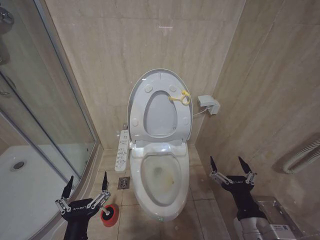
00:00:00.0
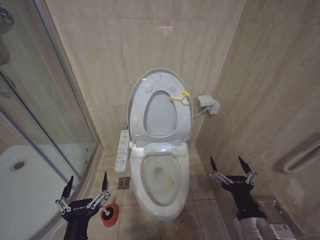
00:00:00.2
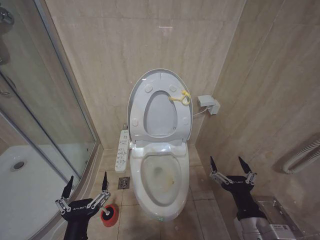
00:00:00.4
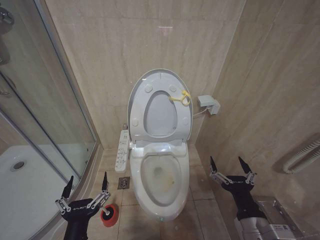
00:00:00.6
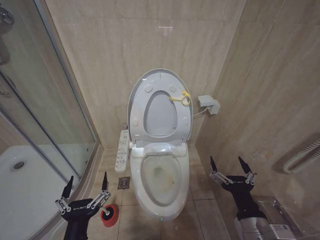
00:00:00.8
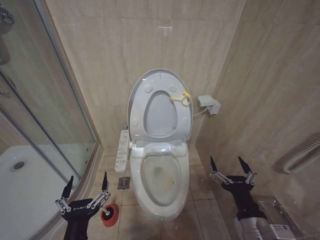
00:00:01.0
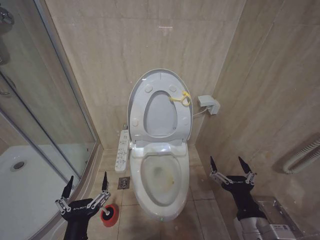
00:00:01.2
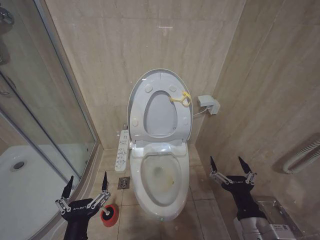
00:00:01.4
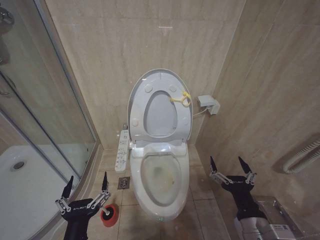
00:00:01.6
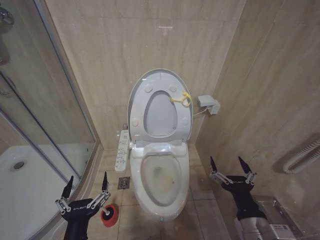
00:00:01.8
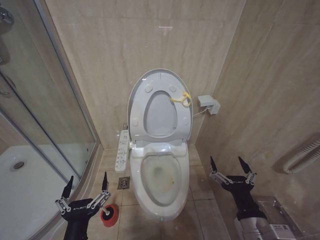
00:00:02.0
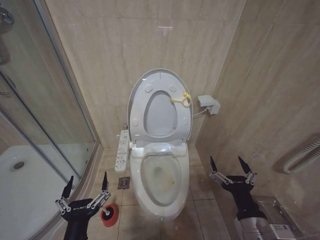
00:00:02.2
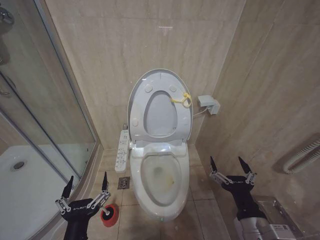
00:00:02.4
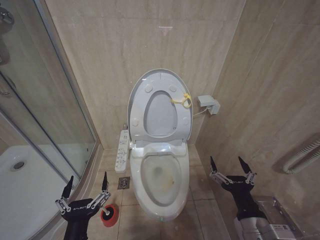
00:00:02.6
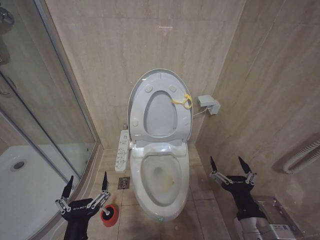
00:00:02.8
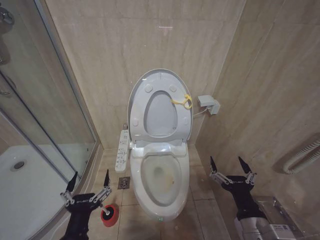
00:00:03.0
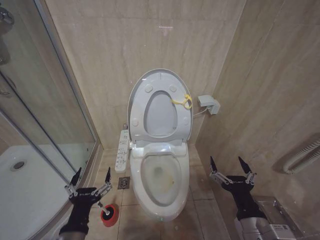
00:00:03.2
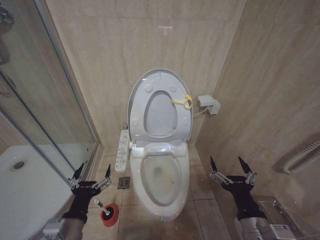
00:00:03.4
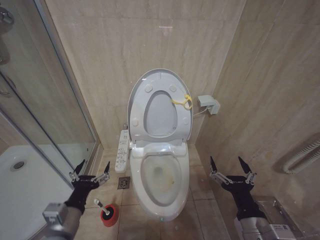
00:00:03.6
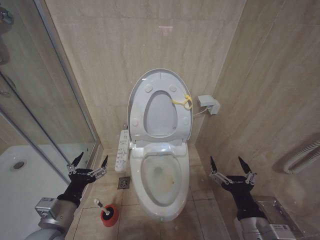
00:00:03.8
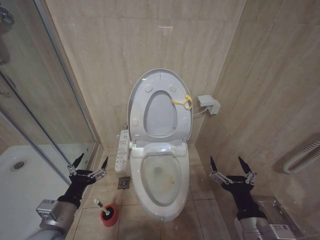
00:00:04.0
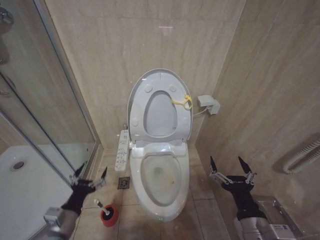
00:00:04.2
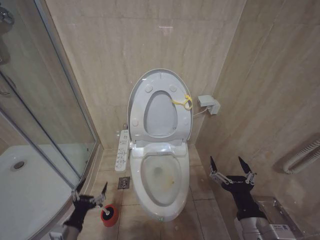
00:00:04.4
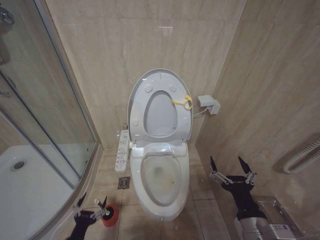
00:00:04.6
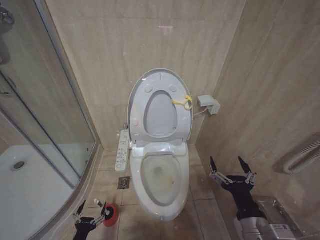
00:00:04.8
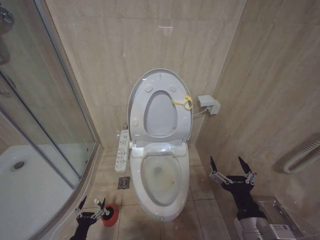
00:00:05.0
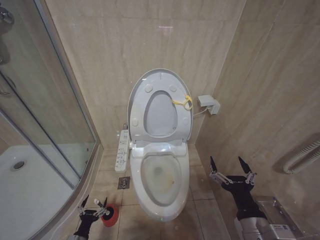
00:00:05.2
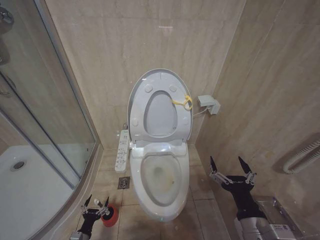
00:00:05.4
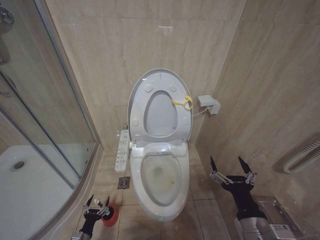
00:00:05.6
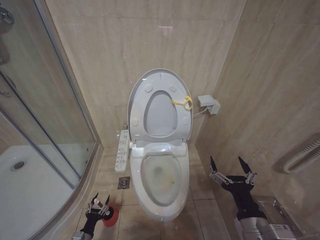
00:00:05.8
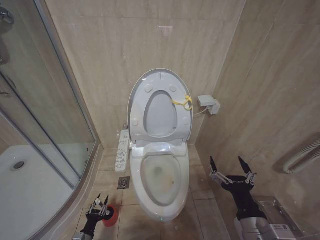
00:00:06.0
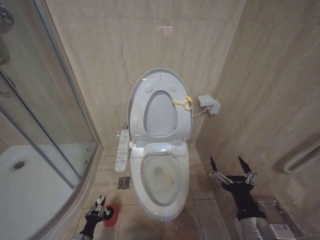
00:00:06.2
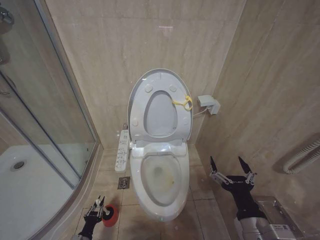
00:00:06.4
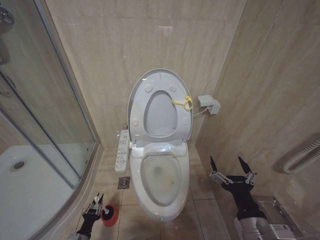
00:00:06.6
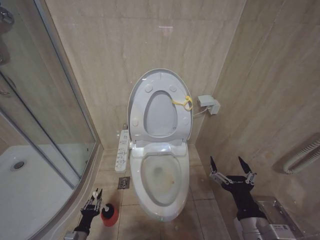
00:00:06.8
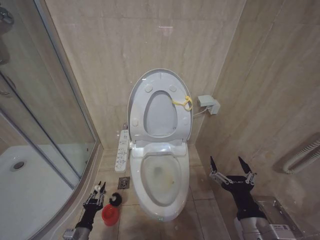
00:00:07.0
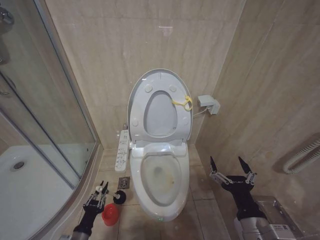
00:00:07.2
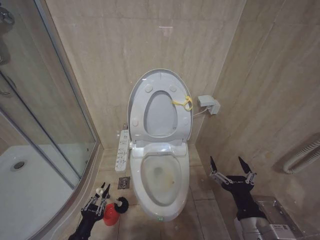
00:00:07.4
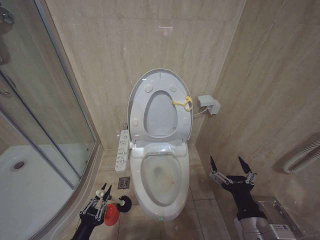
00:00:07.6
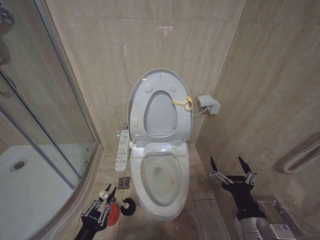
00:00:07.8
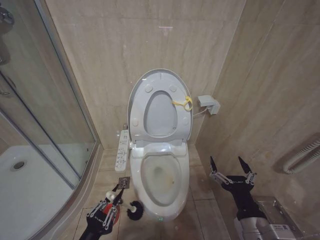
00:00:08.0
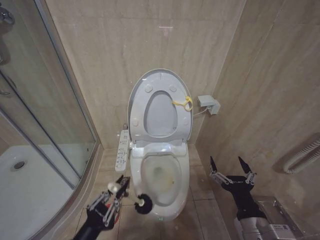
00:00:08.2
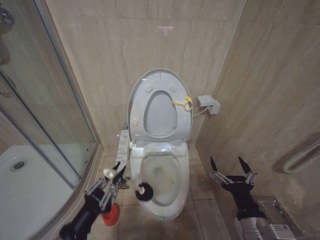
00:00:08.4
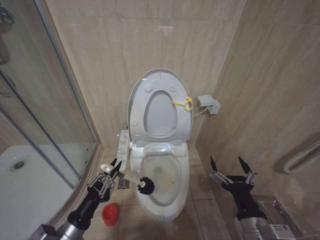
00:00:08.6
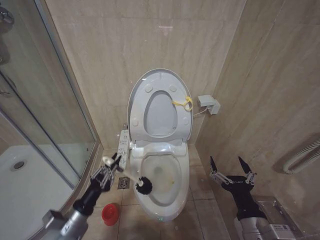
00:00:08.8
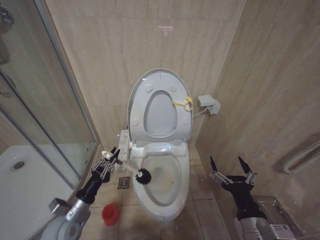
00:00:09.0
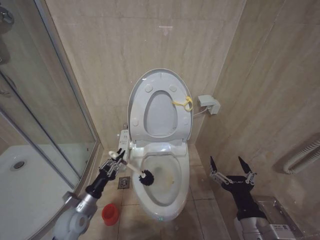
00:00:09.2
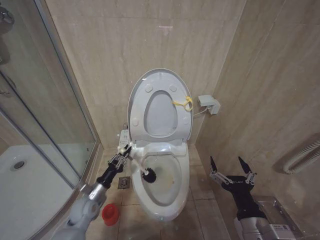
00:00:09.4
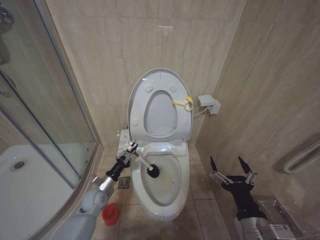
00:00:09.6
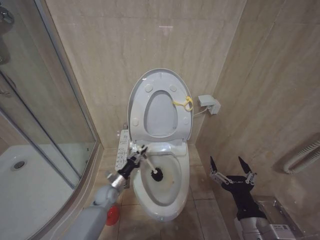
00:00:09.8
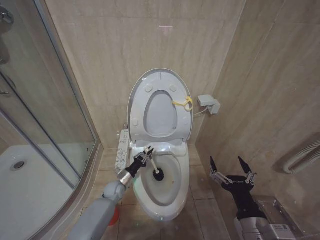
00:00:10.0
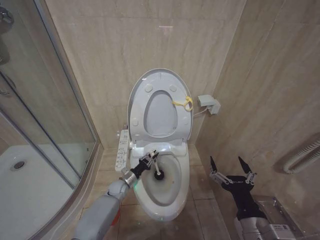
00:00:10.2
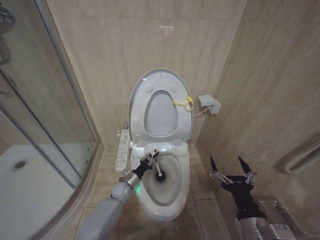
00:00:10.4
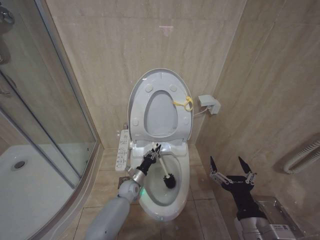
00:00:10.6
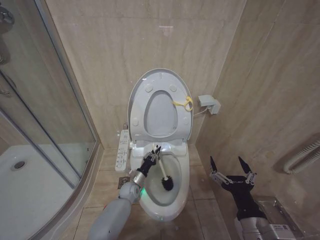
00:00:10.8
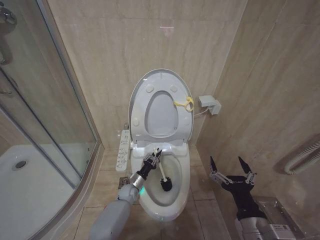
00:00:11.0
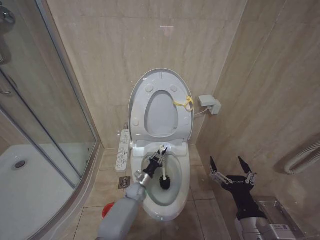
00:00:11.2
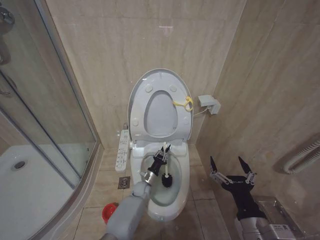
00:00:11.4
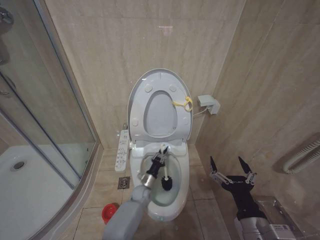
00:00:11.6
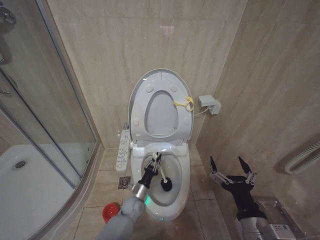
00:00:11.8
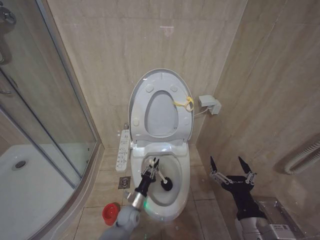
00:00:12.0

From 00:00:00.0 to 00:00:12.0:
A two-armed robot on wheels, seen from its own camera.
Task of the whole recording: Open the toilet lid, clean the toilet bowl with a toilet brush, close the toilet lid, and flush.
From 00:00:00.0 to 00:00:03.0: The two grippers keep their place.
From 00:00:03.0 to 00:00:04.4: The left gripper moves to the left, downward and forward, approximately 15 cm.
From 00:00:04.4 to 00:00:06.0: The left gripper travels downward by roughly 20 cm, and closes up.
From 00:00:06.0 to 00:00:07.6: The left gripper is displaced upward and backward by some 20 cm, and closes up.
From 00:00:07.6 to 00:00:09.0: The left gripper shifts about 15 cm forward and upward.
From 00:00:09.0 to 00:00:10.4: The left gripper moves forward, downward and to the right, approximately 30 cm.
From 00:00:10.4 to 00:00:12.0: The left gripper is displaced backward and to the right by about 10 cm.

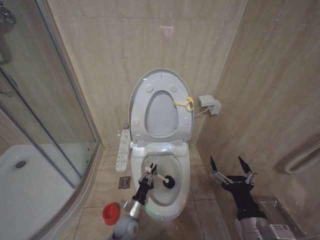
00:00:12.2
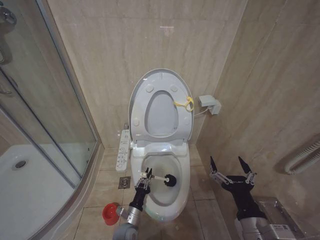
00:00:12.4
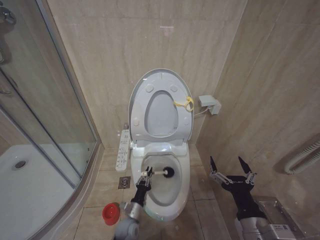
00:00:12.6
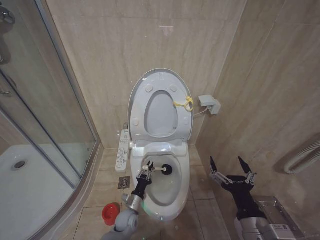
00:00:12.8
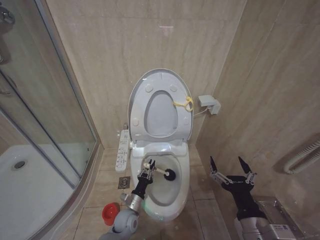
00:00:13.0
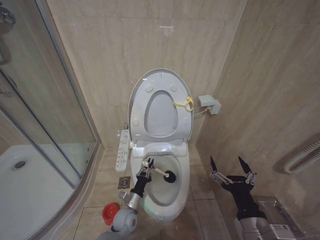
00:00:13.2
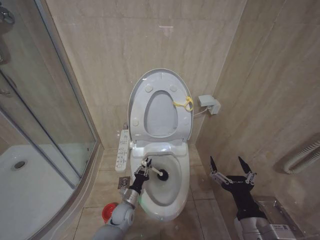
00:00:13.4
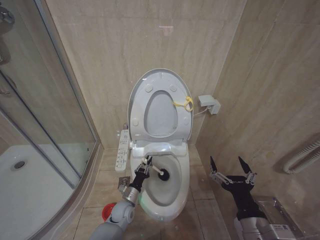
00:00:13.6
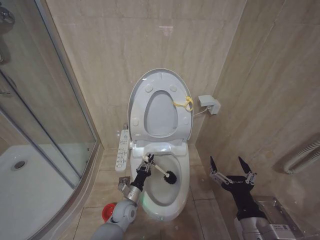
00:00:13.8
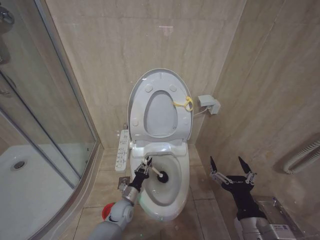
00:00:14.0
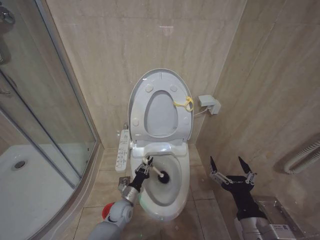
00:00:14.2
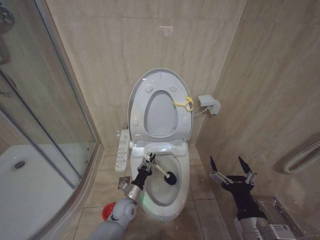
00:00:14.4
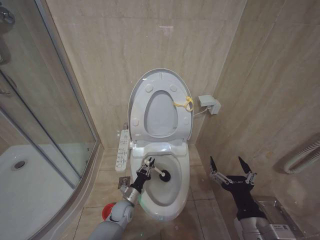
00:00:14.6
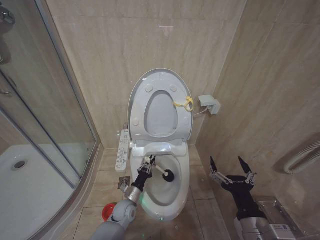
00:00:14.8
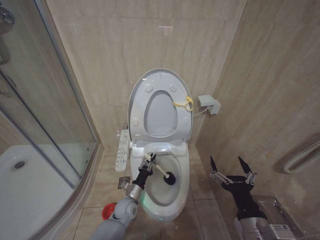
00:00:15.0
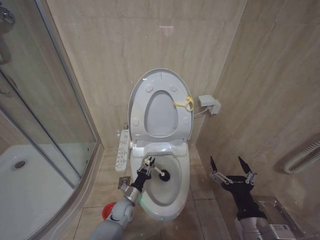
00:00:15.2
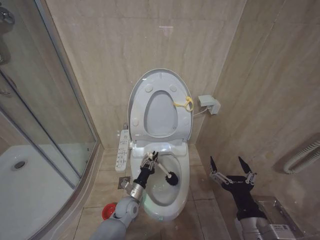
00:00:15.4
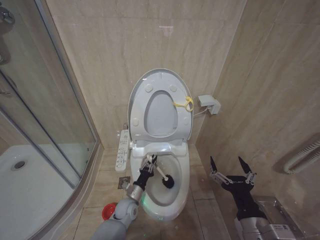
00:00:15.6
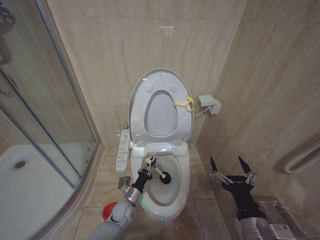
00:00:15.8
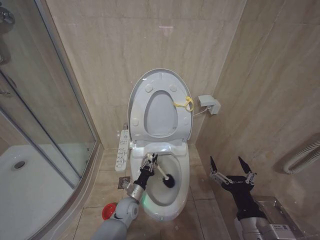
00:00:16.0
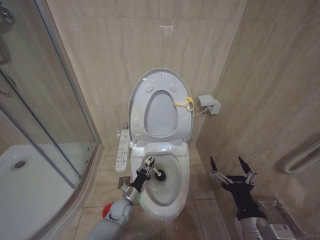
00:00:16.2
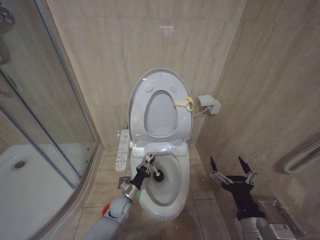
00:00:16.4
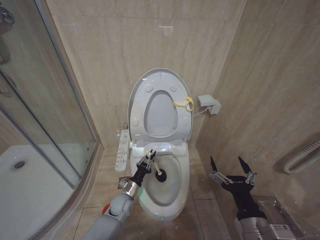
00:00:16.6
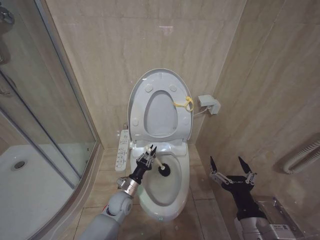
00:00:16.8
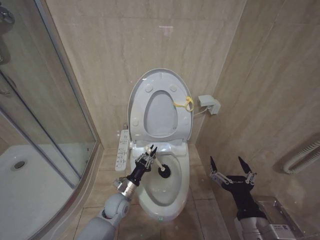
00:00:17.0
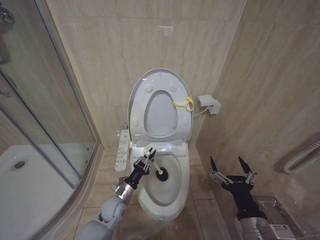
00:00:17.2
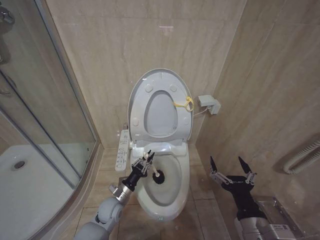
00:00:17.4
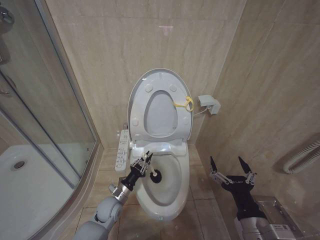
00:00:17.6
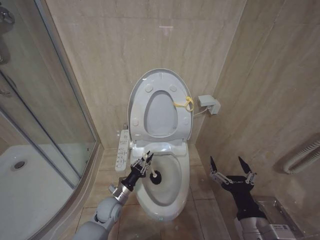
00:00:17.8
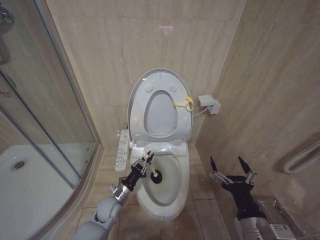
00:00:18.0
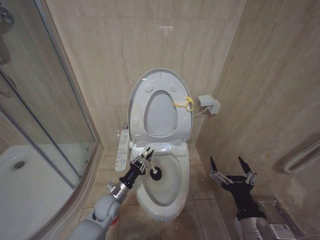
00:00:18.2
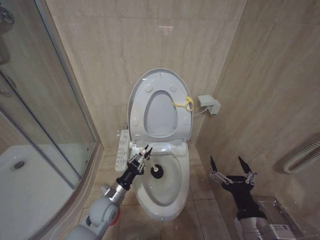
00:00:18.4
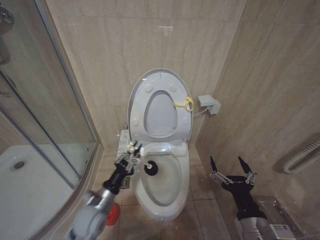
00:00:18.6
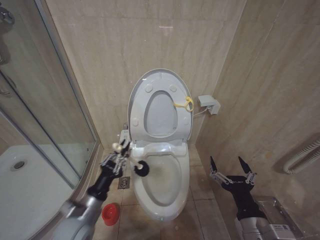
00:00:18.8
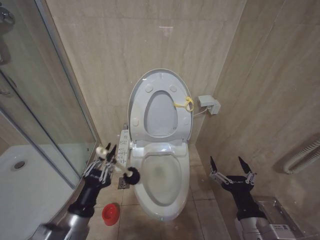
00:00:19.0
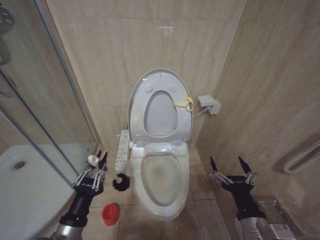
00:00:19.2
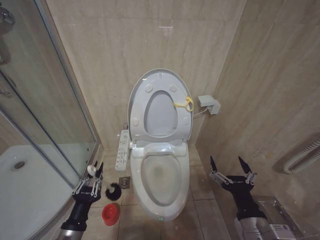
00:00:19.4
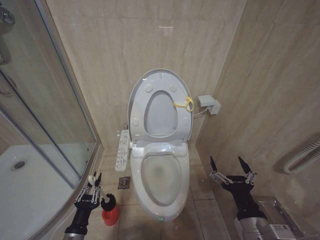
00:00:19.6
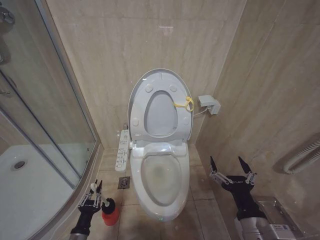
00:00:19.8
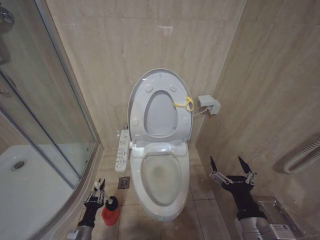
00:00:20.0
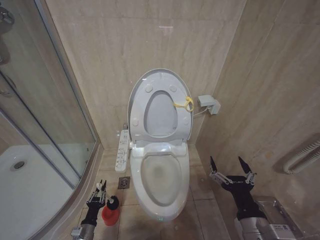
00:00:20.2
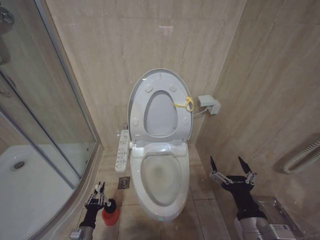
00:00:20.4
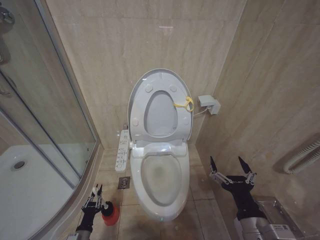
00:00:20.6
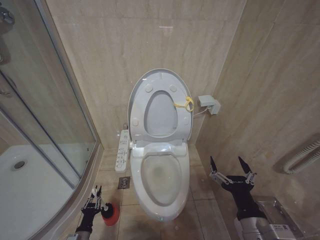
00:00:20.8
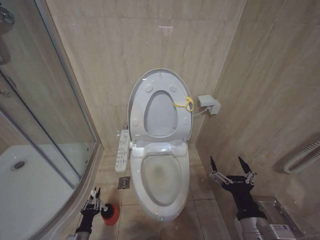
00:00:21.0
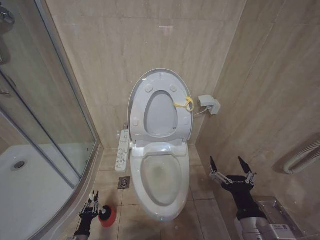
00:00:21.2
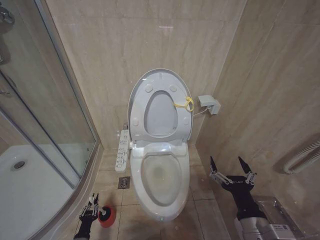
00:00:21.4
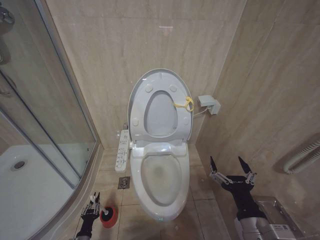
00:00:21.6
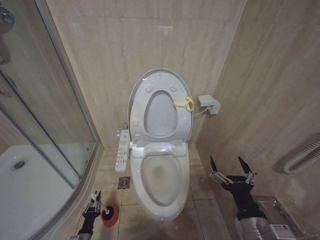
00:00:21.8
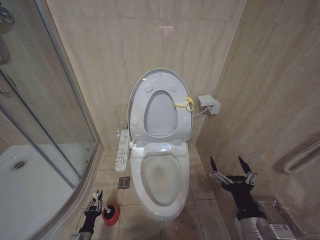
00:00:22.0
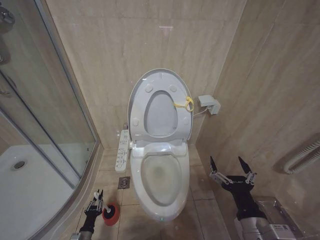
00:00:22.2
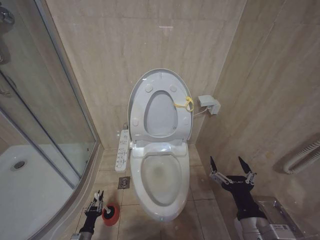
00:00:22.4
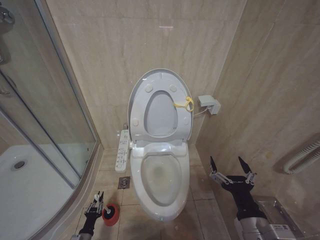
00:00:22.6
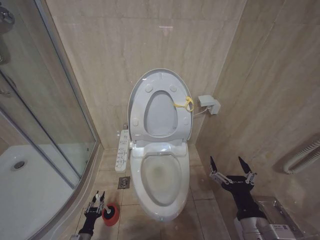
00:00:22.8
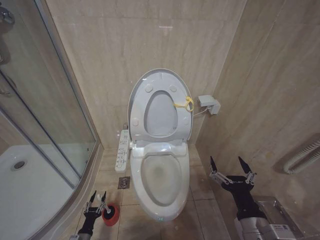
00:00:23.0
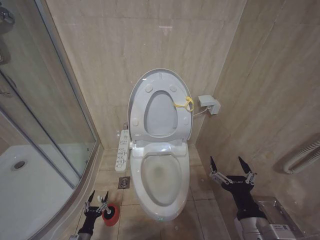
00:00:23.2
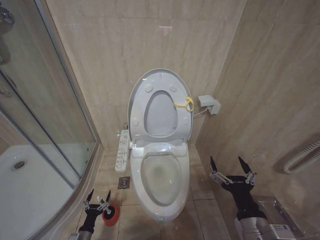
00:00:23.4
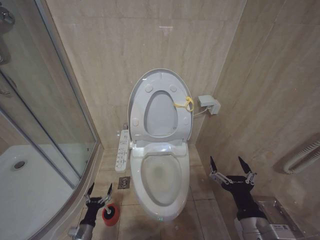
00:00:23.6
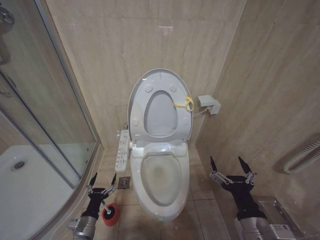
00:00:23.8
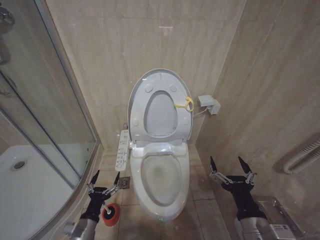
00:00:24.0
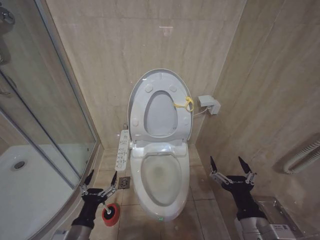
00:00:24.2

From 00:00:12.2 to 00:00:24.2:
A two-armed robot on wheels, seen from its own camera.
Task of the whole recording: Open the toilet lid, clean the toilet bowl with a toilet brush, close the toilet lid, and flush.
From 00:00:12.2 to 00:00:13.8: The left gripper ends up roughly 5 cm from where it was.
From 00:00:15.2 to 00:00:16.6: The grippers move only a little.
From 00:00:16.6 to 00:00:18.2: The left gripper moves upward, approximately 5 cm.
From 00:00:18.2 to 00:00:19.8: The left gripper is displaced backward and to the left by approximately 20 cm.
From 00:00:19.8 to 00:00:21.2: The left gripper is displaced downward by some 15 cm.
From 00:00:22.6 to 00:00:24.2: The left gripper is displaced upward by approximately 30 cm, and opens.
